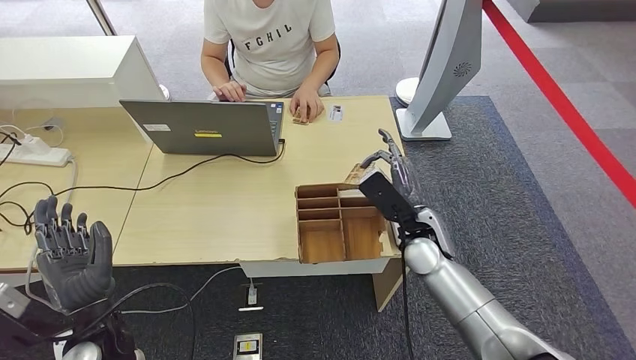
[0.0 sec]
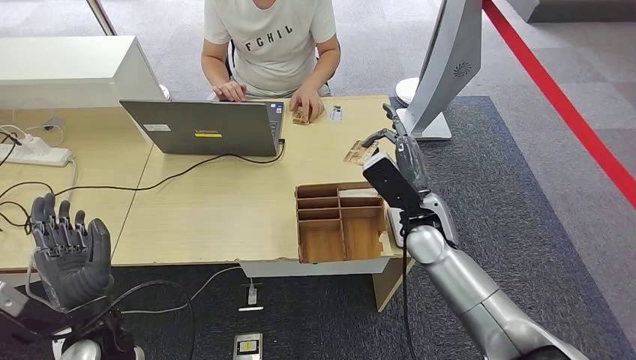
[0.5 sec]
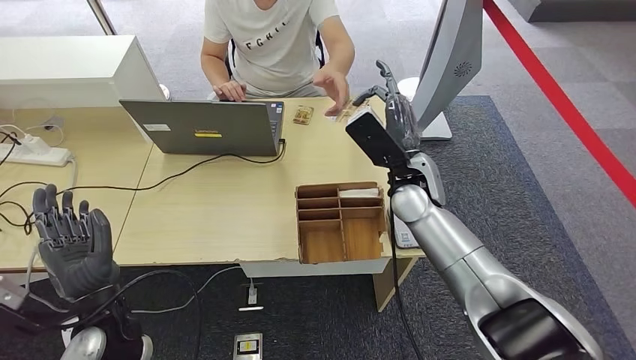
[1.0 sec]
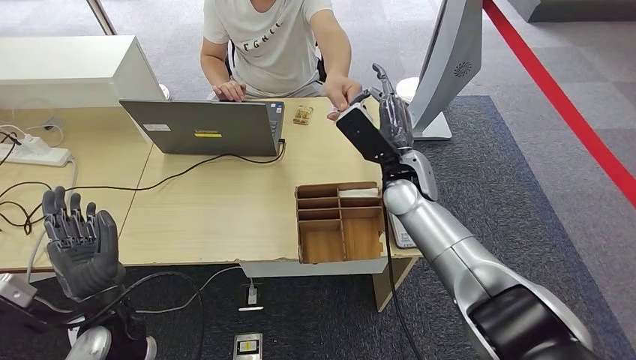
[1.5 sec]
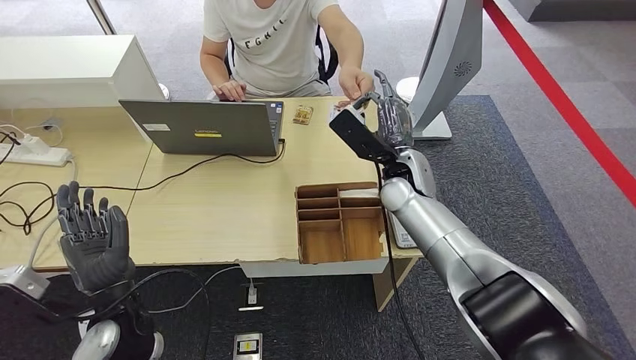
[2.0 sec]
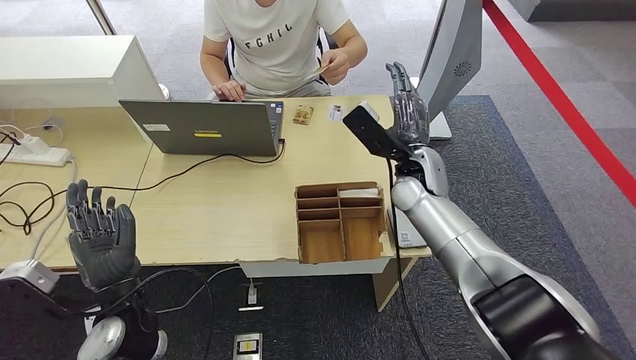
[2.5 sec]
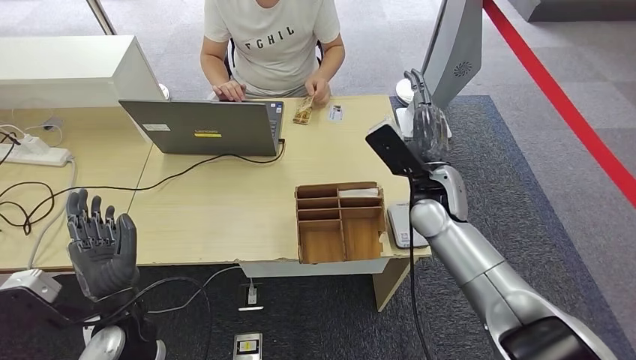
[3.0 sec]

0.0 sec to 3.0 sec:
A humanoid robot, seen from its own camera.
Step, 1.0 sec to 3.0 sec: Hand the room key to the person.
0.0 sec to 1.5 sec: The right hand travels upward and forward by some 10 cm.
1.5 sec to 3.0 sec: The right hand changes place by about 5 cm.
